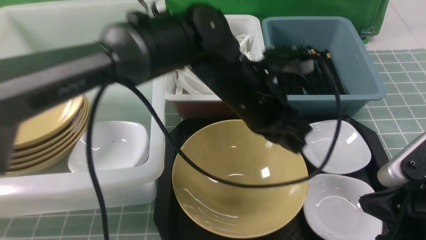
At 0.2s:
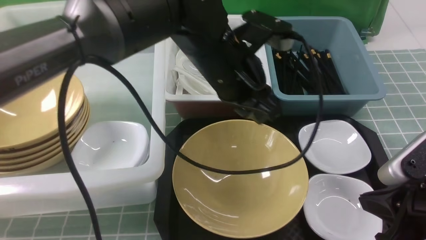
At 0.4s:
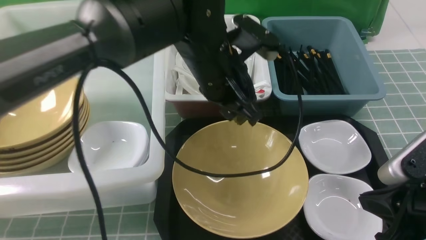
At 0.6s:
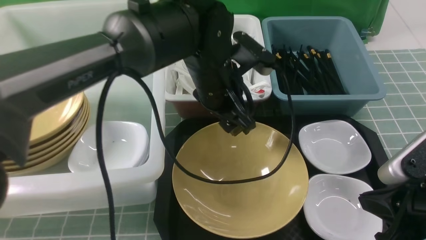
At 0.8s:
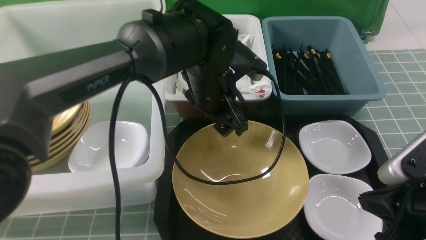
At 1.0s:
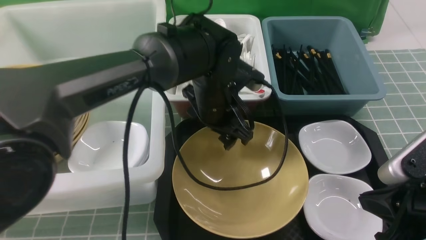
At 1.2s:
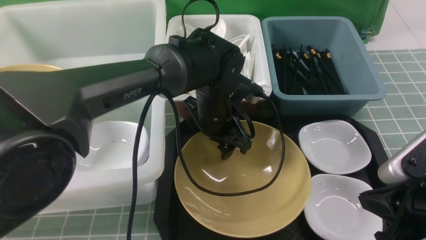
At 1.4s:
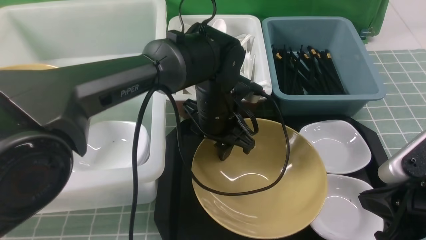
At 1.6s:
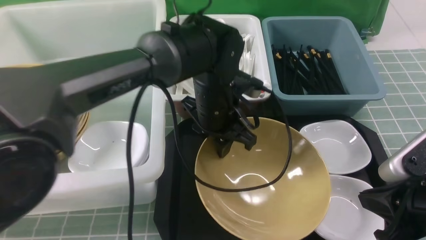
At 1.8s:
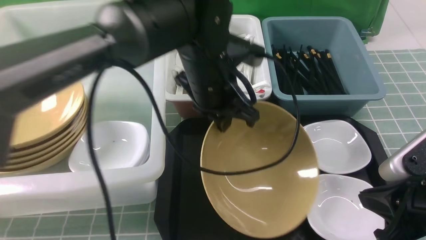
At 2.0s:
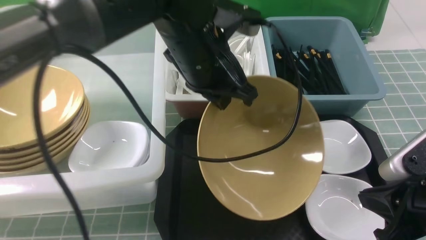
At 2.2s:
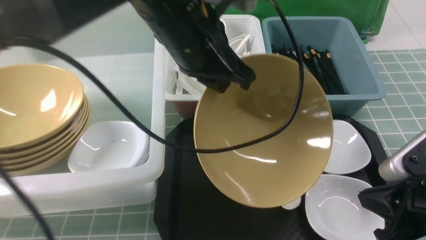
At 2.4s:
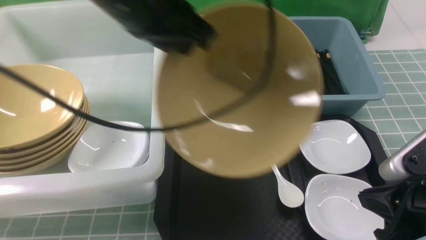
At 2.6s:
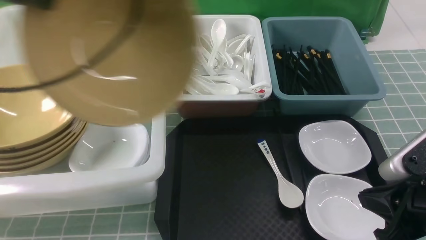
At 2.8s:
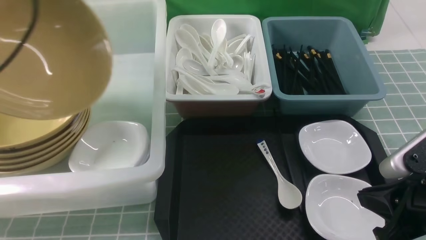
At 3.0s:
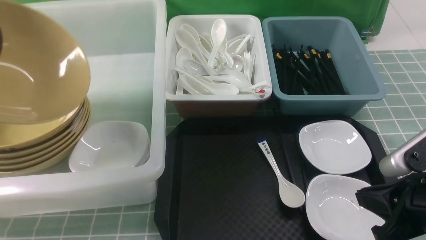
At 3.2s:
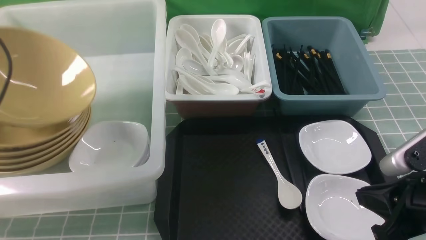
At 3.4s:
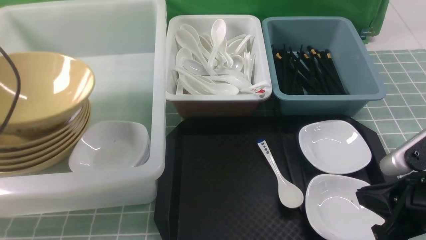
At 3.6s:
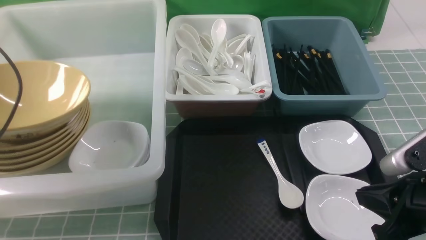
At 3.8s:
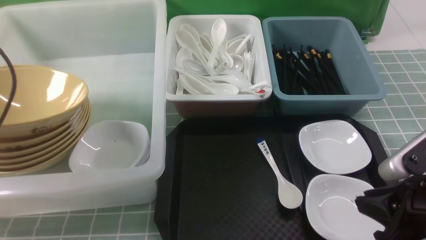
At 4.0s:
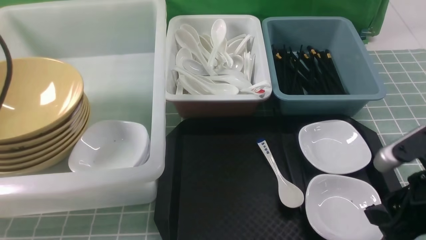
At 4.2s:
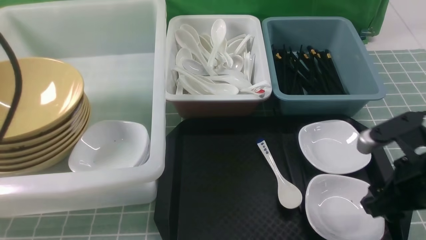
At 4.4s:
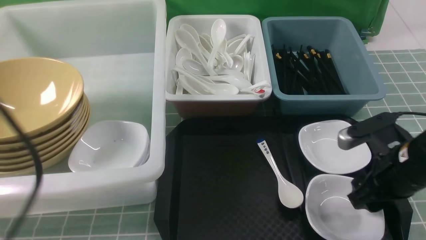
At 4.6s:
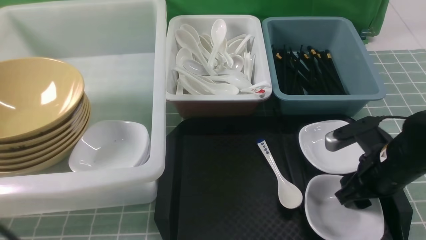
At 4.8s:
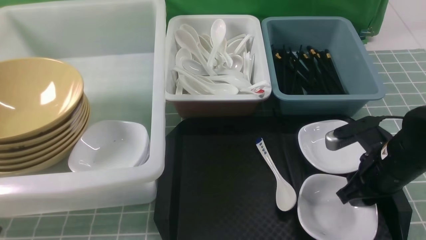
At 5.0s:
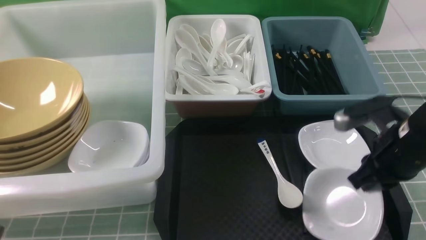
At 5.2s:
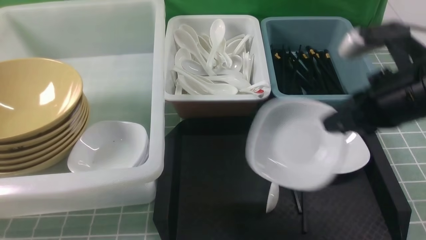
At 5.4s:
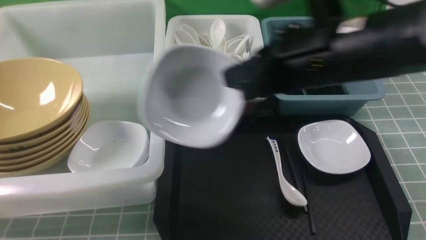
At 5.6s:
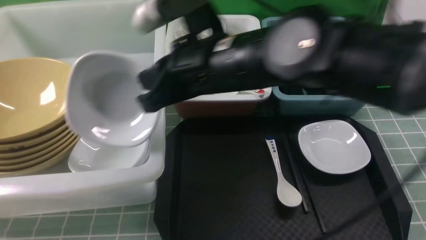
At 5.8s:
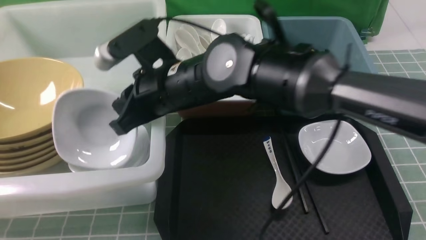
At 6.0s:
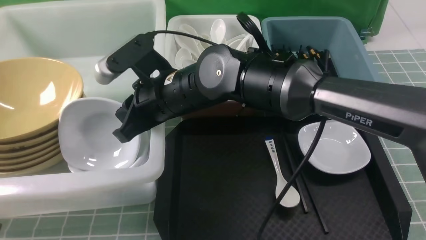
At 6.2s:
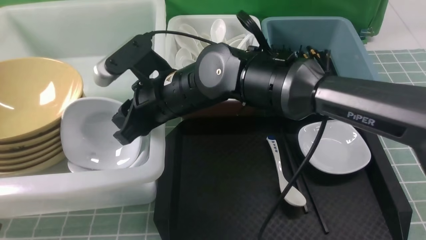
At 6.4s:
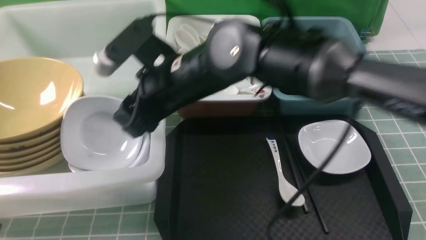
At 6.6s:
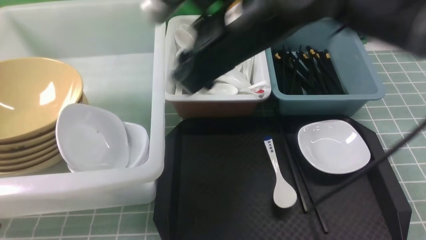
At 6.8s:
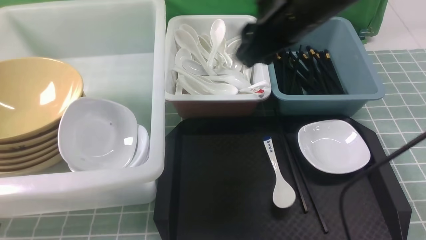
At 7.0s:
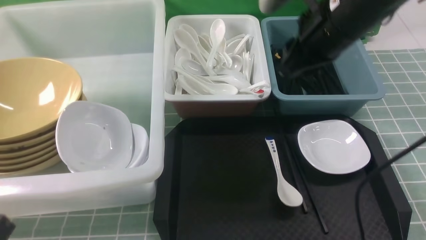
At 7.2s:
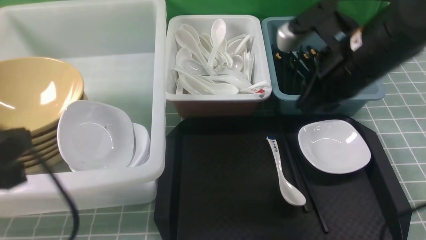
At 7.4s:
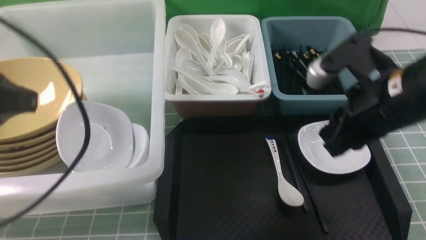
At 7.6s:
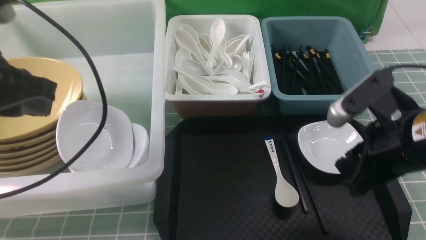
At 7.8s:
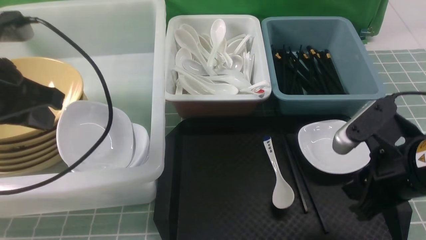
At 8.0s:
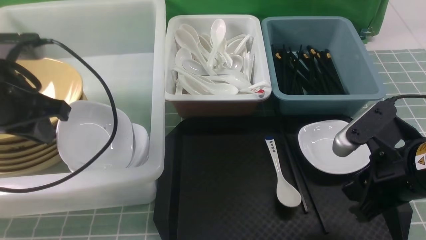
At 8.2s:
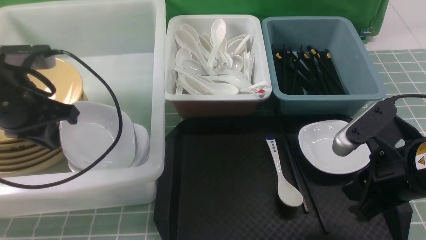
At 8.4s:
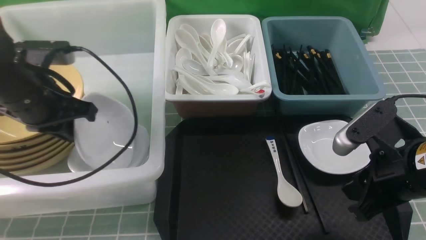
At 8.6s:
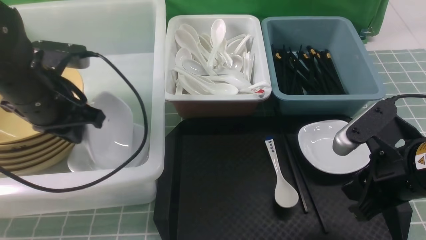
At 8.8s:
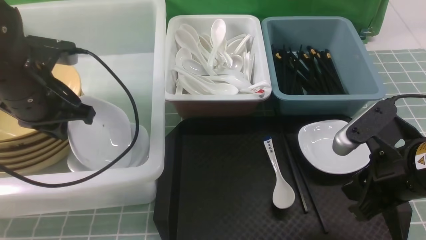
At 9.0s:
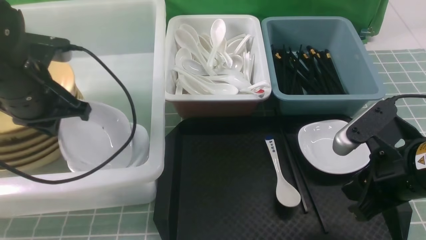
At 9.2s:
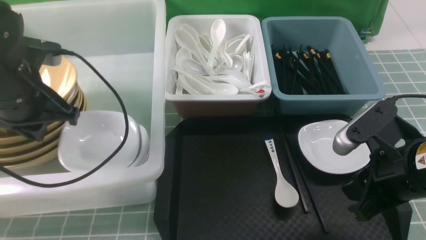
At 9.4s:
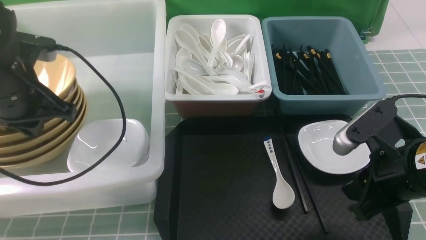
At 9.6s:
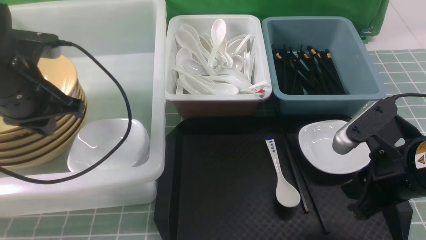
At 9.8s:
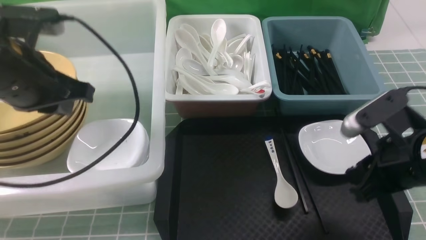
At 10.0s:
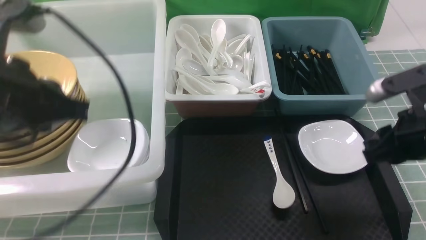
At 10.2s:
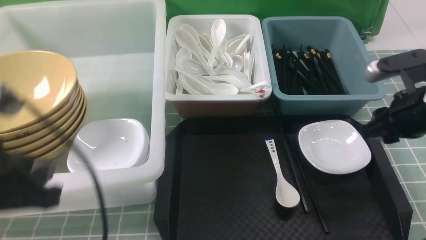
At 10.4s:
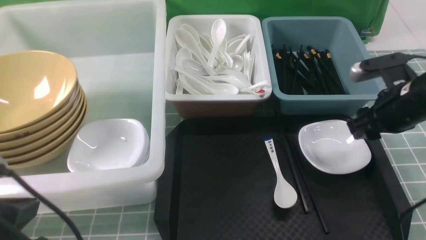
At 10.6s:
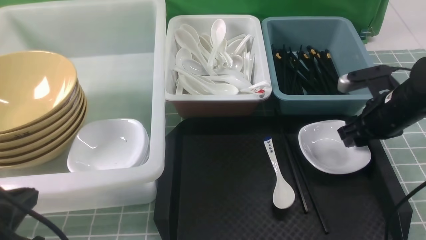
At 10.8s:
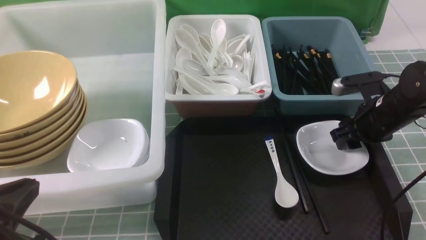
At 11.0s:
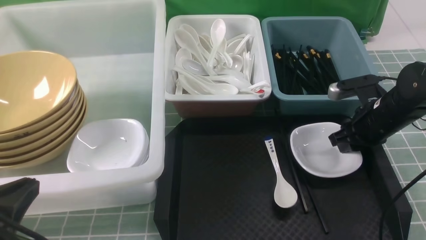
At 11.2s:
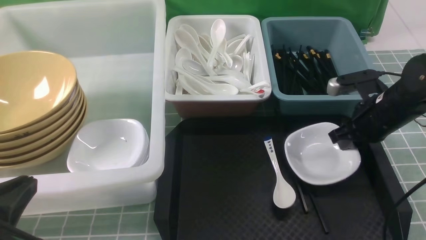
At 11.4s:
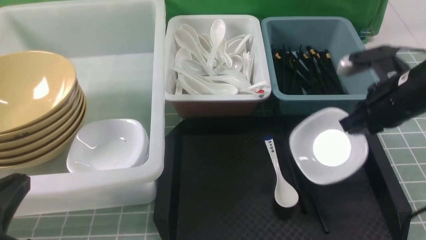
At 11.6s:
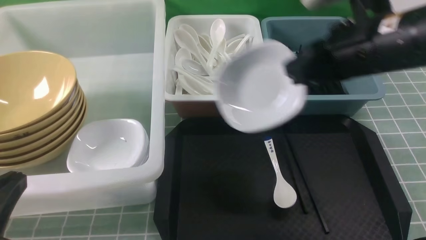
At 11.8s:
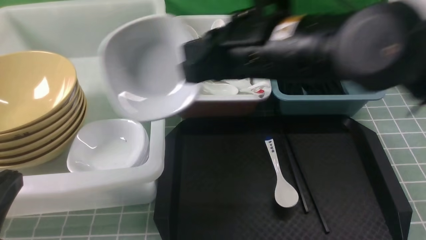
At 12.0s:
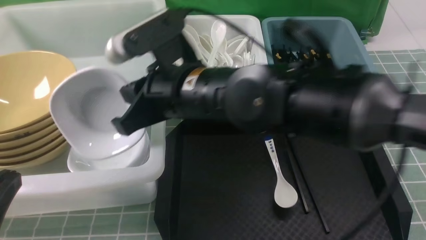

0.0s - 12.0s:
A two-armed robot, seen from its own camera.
Task of the whole recording: on blue table put chopsticks spoon bowls plates into blue grey white boxes.
Step, 1.8s - 4.0s: use the left arm to put the noodle bowl into the large storage box on the left.
Step, 4.2s - 5.0s: use the right arm to grab the plate.
Step, 5.2s - 6.4s: use the right arm to put the plate into the large storage box on the left.
Step, 6.6s - 11.4s: use the right arm to grab the plate.
0.0s - 1.6s: The left gripper reaches roughly 5 cm downward, then returns, and opens, then closes again.
1.6s - 3.0s: The left gripper moves to the left, about 35 cm.
3.0s - 4.4s: The left gripper heads backward and to the right, covering some 20 cm, and opens; the right gripper shifts approximately 10 cm forward, and opens its fingers.
4.4s - 6.0s: The left gripper shifts roughly 10 cm downward, and closes up; the right gripper heads to the left, covering some 30 cm, and closes.
6.0s - 7.6s: The right gripper is displaced to the right by about 25 cm, and opens and closes again. Meanwhile the left gripper shifts approximately 20 cm forward and upward.
7.6s - 9.0s: The left gripper is displaced forward and downward by about 10 cm.
9.0s - 10.4s: The right gripper goes approximately 15 cm forward and to the right, and opens its fingers. The left gripper is displaced backward by about 20 cm.
10.4s - 12.0s: The right gripper heads to the left, covering approximately 30 cm, and closes its fingers.

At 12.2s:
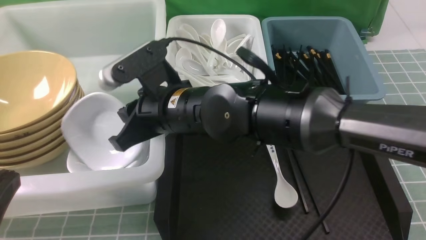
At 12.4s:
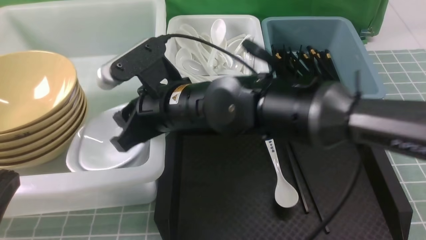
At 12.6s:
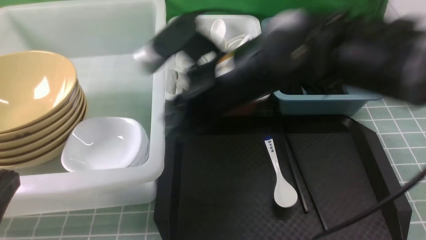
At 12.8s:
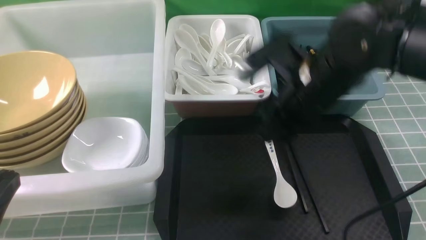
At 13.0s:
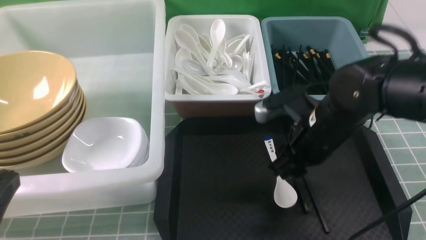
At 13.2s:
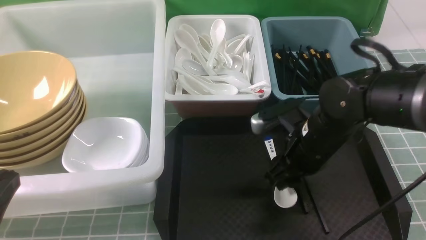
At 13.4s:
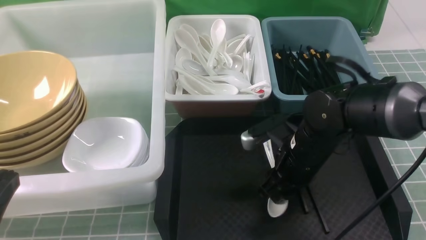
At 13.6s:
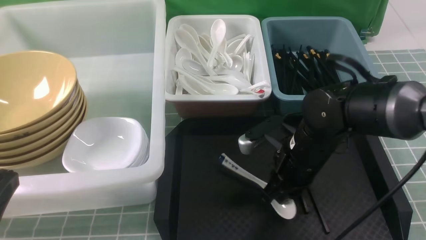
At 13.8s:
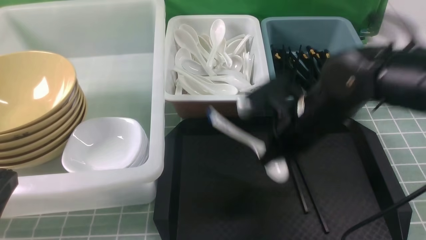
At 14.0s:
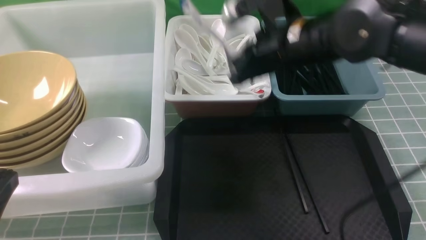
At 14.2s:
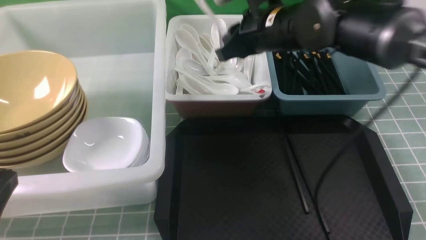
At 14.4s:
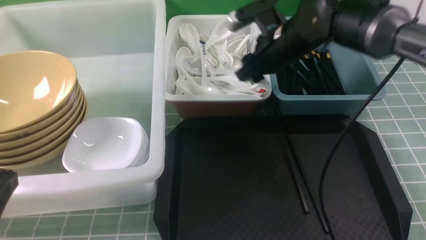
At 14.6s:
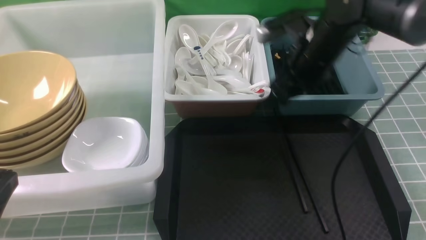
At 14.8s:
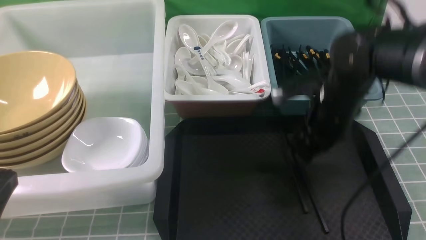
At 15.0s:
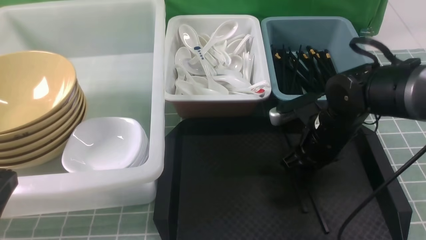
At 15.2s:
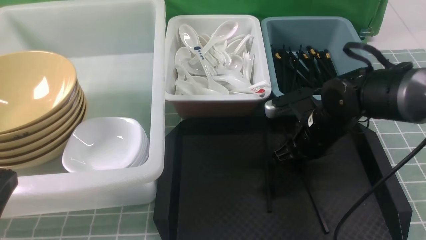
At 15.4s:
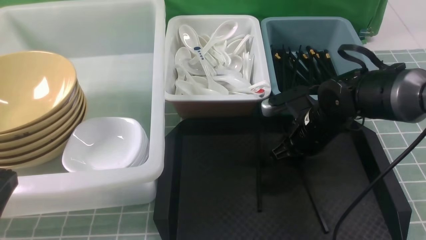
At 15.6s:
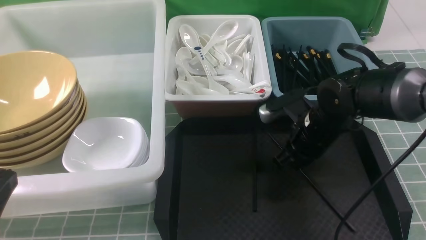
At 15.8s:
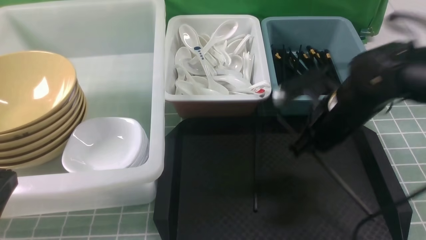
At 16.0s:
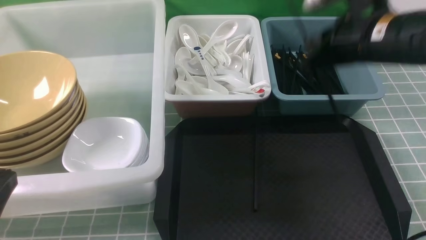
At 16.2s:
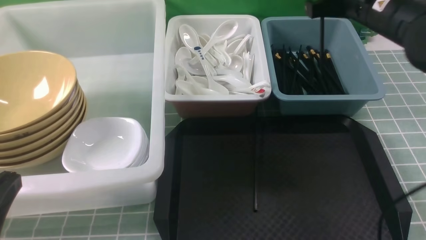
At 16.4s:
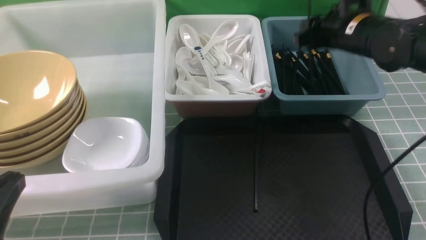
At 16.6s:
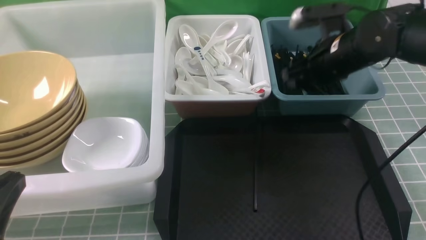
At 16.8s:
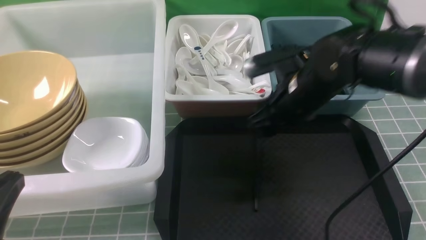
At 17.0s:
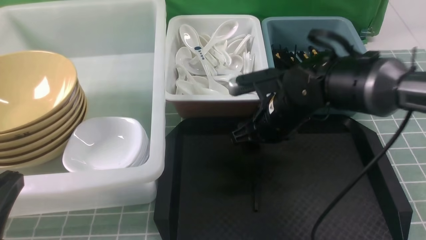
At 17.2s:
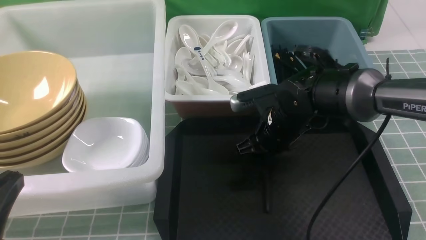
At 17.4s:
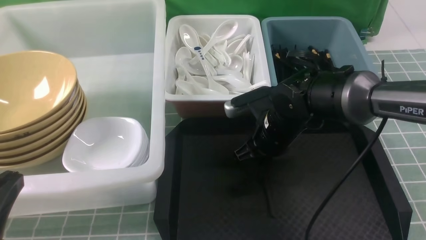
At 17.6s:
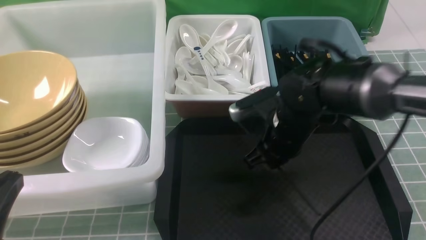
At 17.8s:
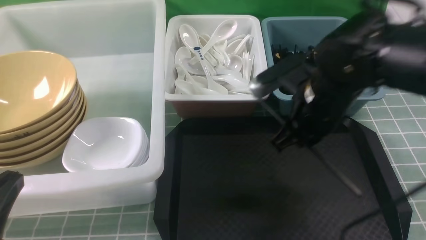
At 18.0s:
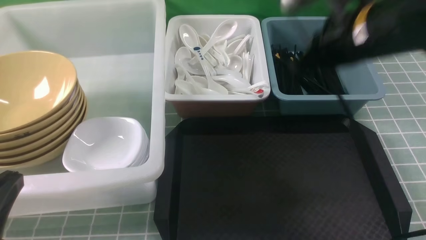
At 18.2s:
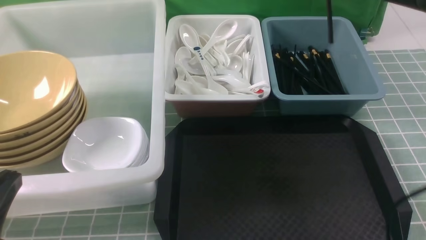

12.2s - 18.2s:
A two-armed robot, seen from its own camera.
Task of the whole recording: on blue table put chopsticks spoon bowls plates into blue grey white boxes.
Step, 12.6s - 14.6s: use the right arm to put the soup spoon into the small storage box in the middle.
Step, 14.8s - 15.8s: use the right arm to grab a chopstick.
Step, 16.0s - 16.6s: use the right arm to put a chopstick into the small storage box on the right.
Step, 16.8s - 17.6s: use the right arm to grab a chopstick.
12.2s - 13.8s: The right gripper travels to the right by about 15 cm, and opens, then closes once more.
13.8s - 15.2s: The right gripper shifts approximately 10 cm downward and to the right, and opens its fingers.
15.2s - 16.6s: The right gripper shifts some 10 cm upward, and closes and opens again.
16.6s - 18.2s: The right gripper travels upward by about 10 cm, and closes up.
